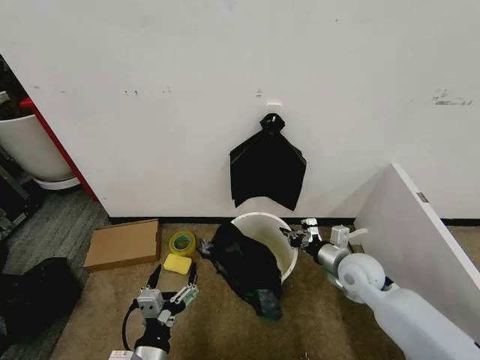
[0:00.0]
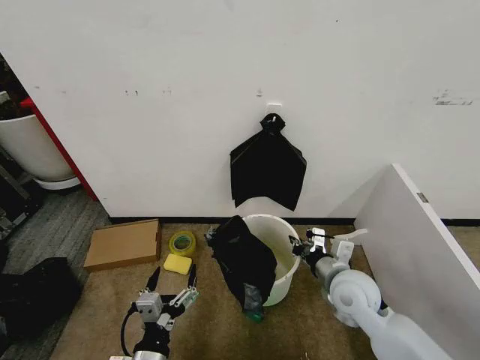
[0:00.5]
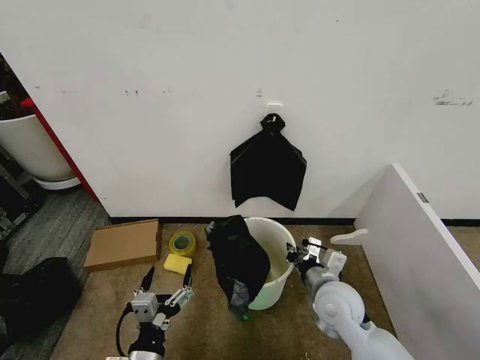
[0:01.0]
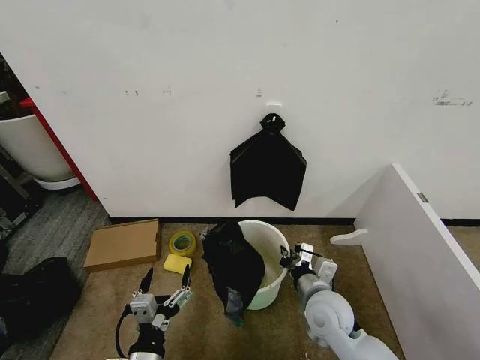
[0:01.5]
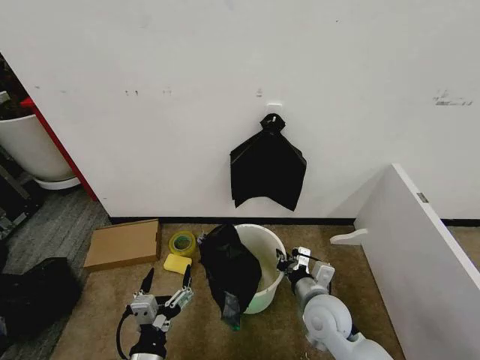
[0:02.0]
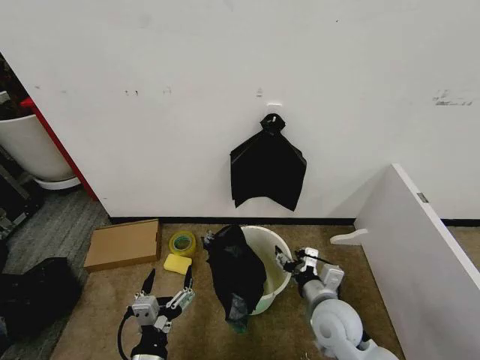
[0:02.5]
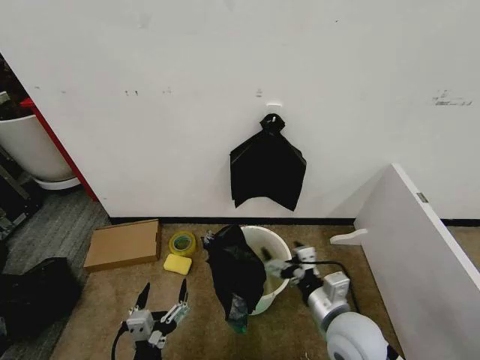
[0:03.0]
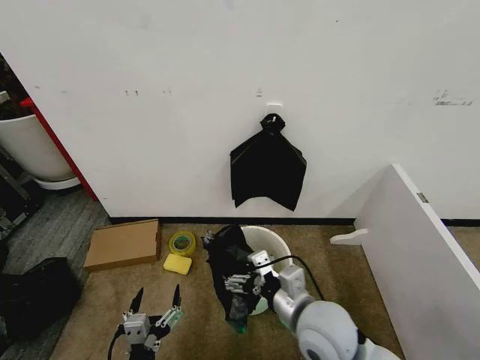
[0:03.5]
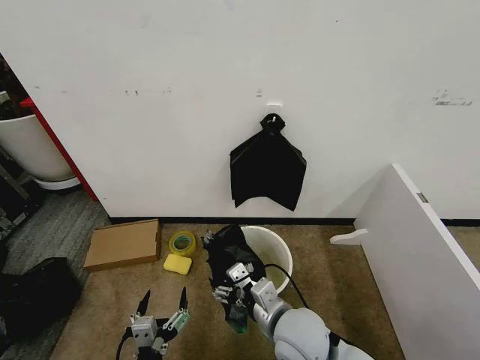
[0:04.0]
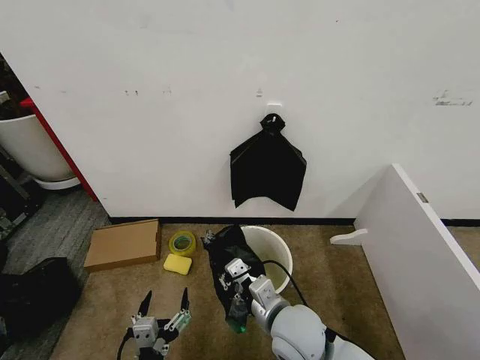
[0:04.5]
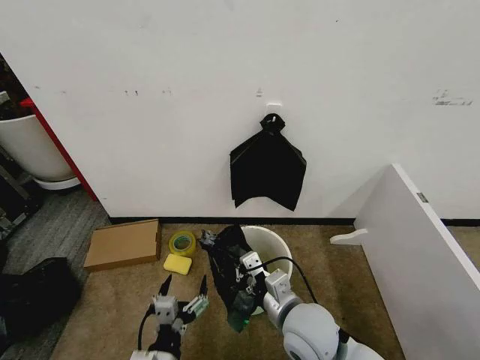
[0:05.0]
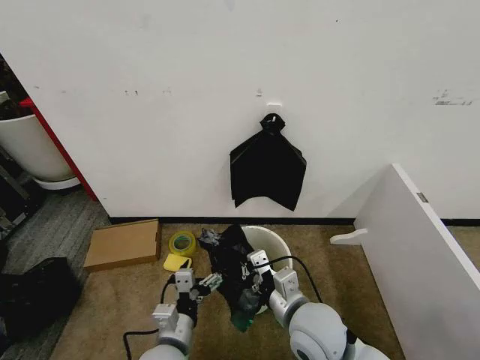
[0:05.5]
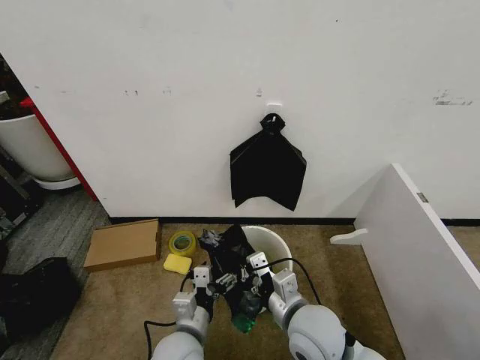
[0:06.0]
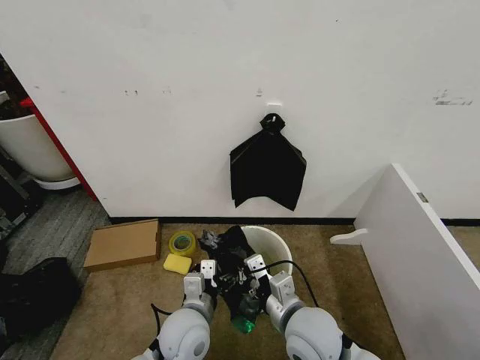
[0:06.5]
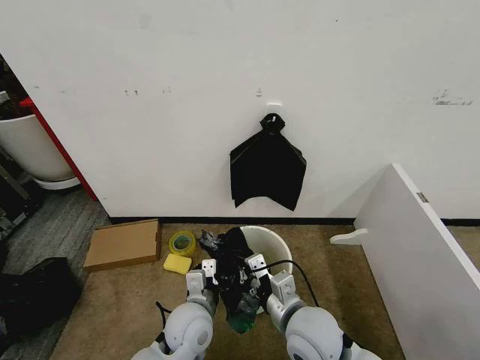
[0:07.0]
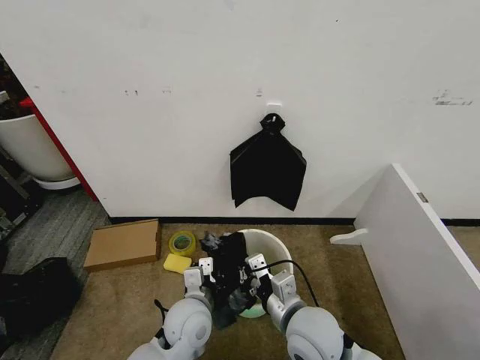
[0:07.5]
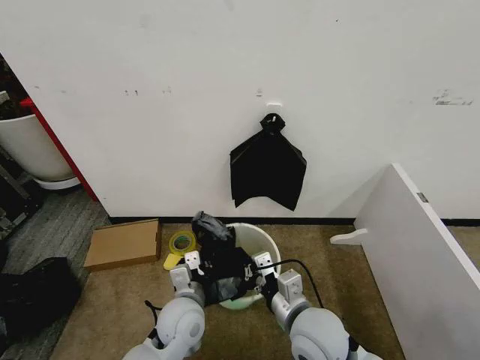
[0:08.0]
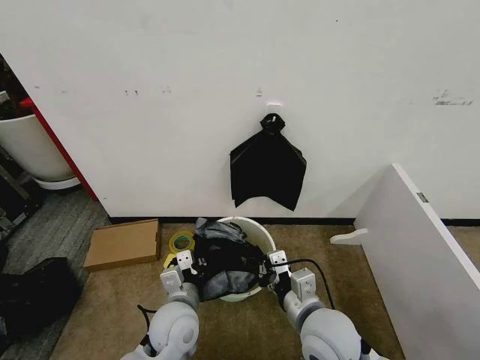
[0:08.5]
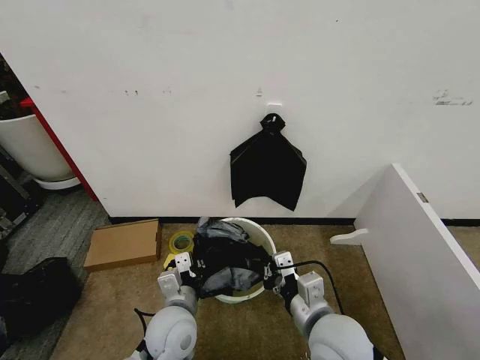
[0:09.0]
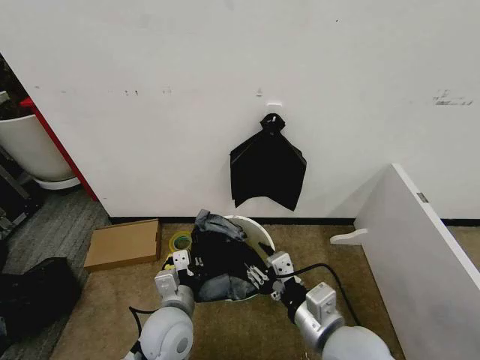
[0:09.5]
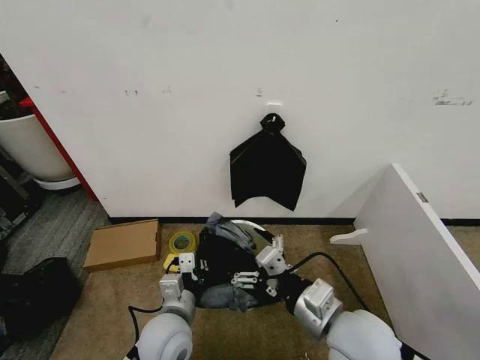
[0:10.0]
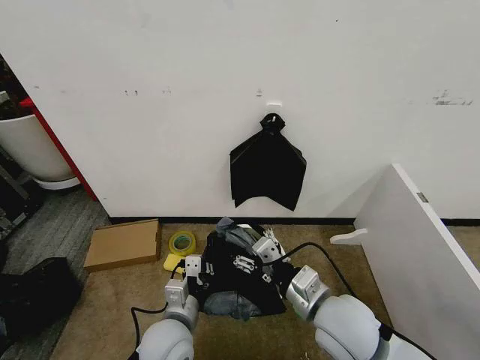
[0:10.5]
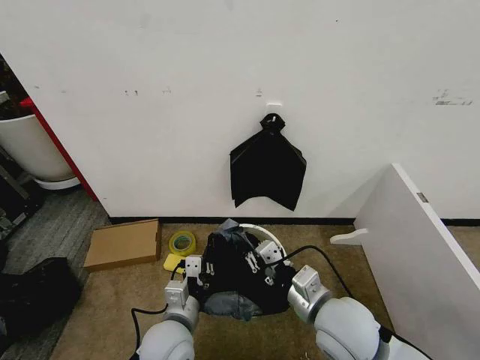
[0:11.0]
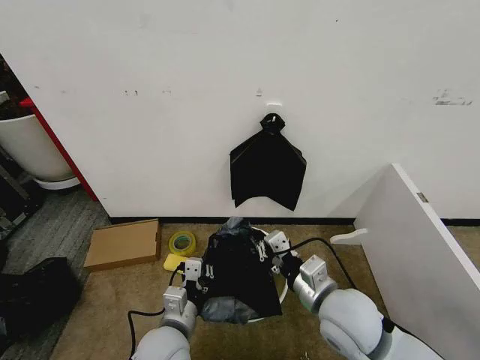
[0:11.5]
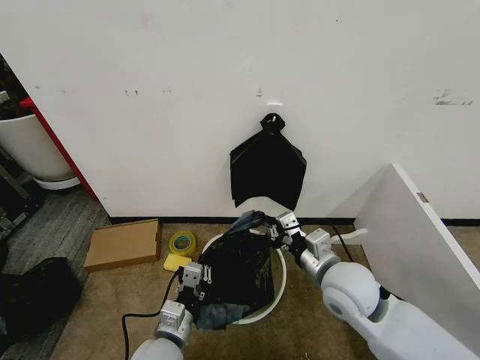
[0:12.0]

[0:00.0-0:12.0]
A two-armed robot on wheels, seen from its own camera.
Task of the whole recording: Place the garbage bag over the trash bin.
0:00.0 to 0:02.0: The right gripper shifts approximately 15 cm to the left and backward.
0:02.0 to 0:04.0: The right gripper shifts roughly 10 cm to the left, upward and backward, and opens up.
0:04.0 to 0:06.0: The right gripper closes. The left gripper goes some 15 cm forward and to the right.
0:06.0 to 0:08.0: The left gripper is displaced forward by roughly 5 cm, and closes its fingers.
0:08.0 to 0:10.0: The right gripper heads upward, covering roughly 5 cm, and opens up.
0:10.0 to 0:12.0: The left gripper changes place by some 5 cm. Meanwhile the right gripper goes roughly 10 cm forward, and closes up.

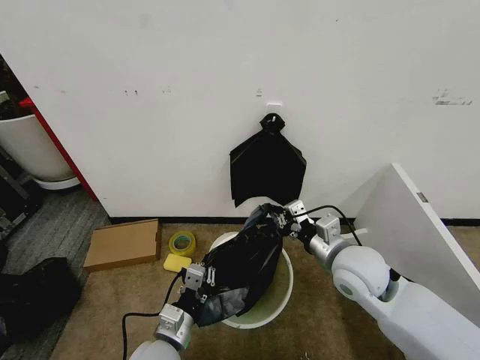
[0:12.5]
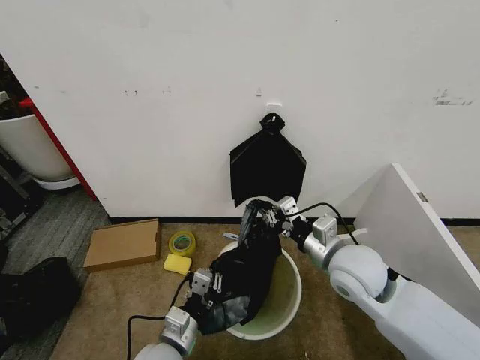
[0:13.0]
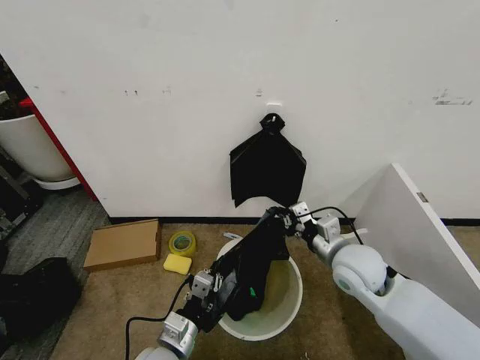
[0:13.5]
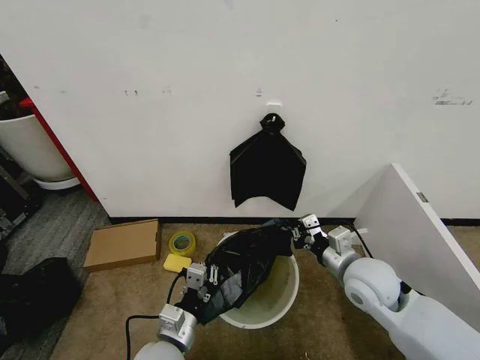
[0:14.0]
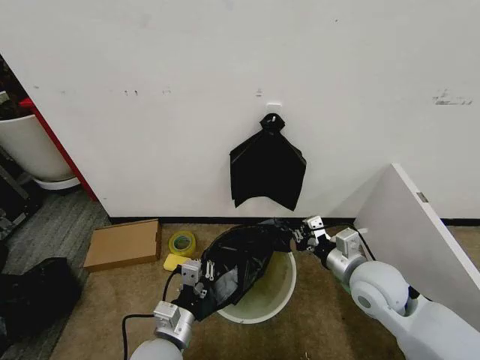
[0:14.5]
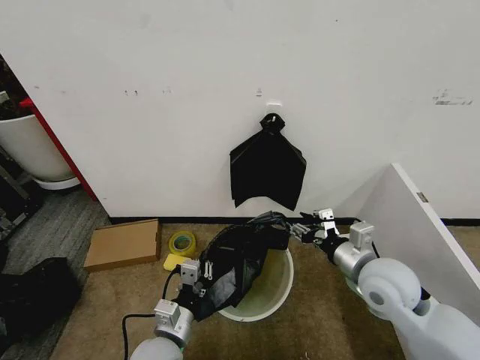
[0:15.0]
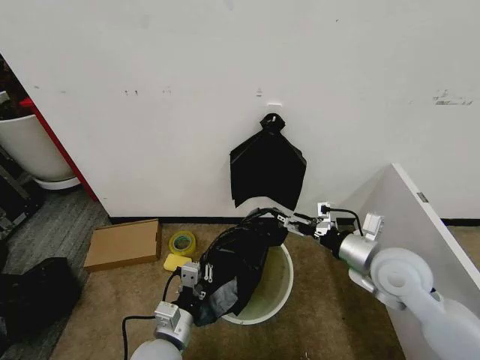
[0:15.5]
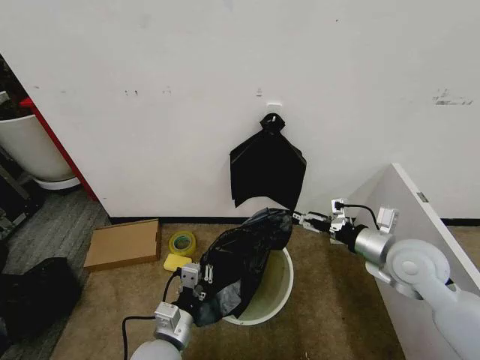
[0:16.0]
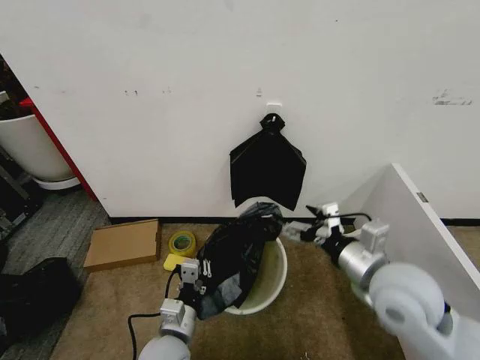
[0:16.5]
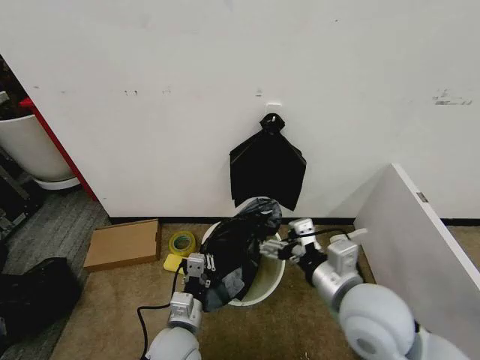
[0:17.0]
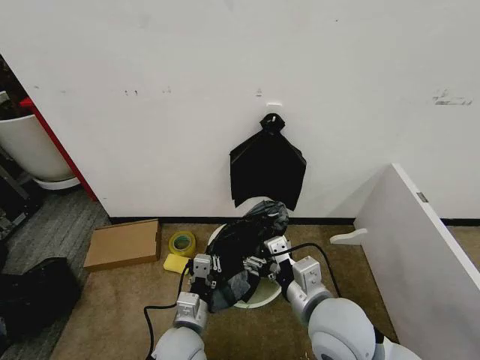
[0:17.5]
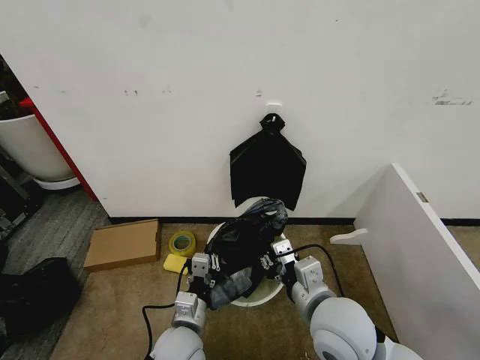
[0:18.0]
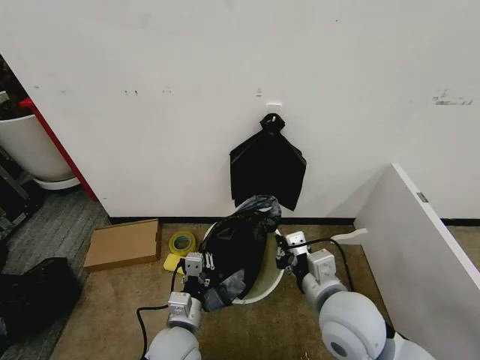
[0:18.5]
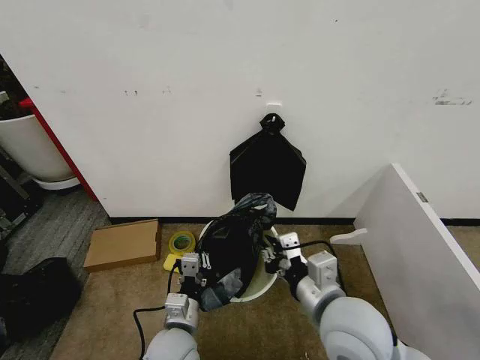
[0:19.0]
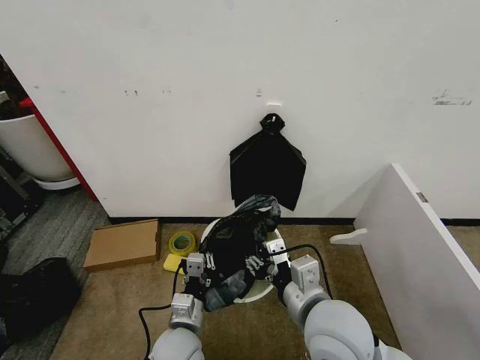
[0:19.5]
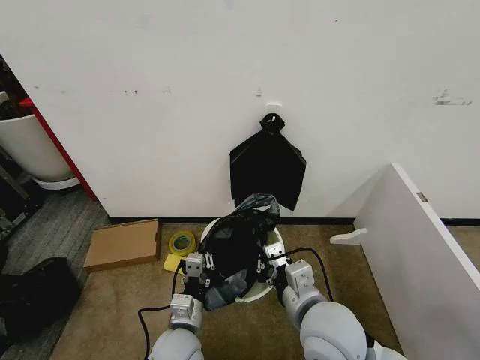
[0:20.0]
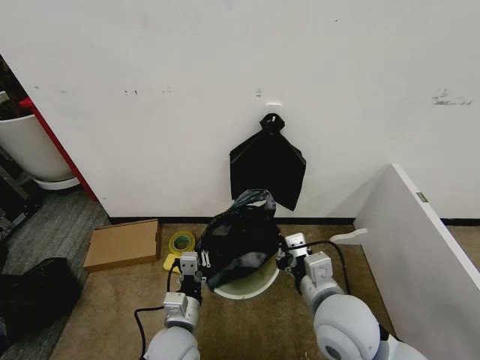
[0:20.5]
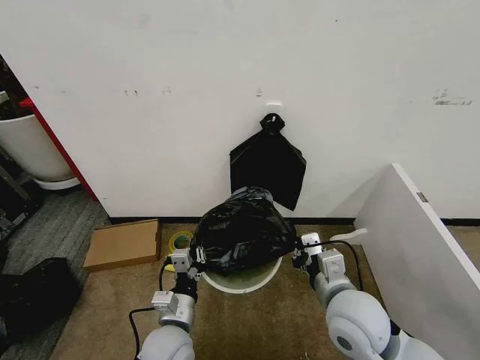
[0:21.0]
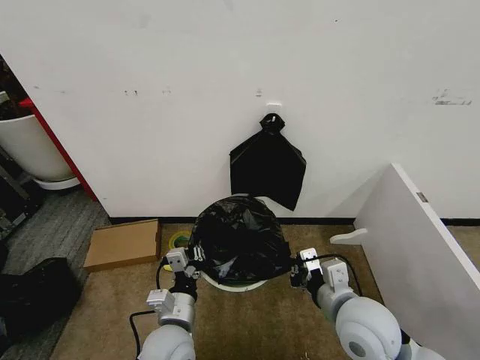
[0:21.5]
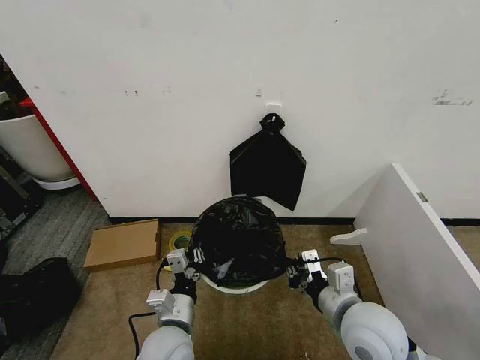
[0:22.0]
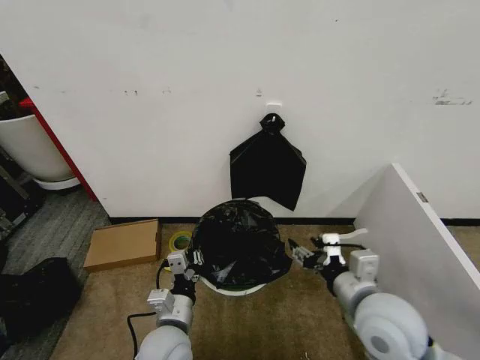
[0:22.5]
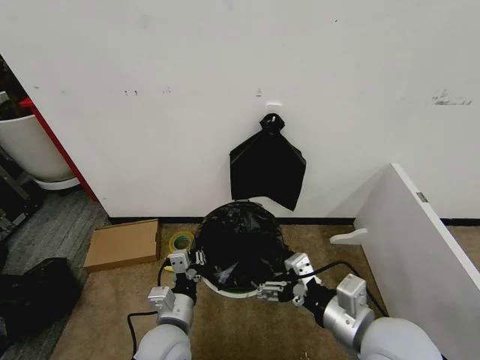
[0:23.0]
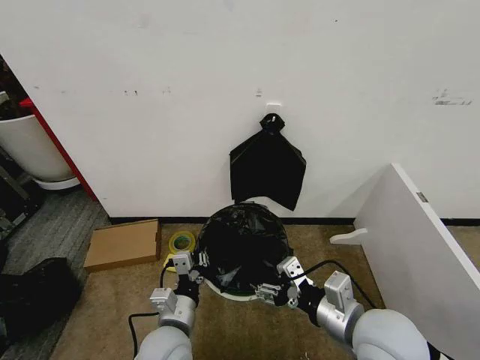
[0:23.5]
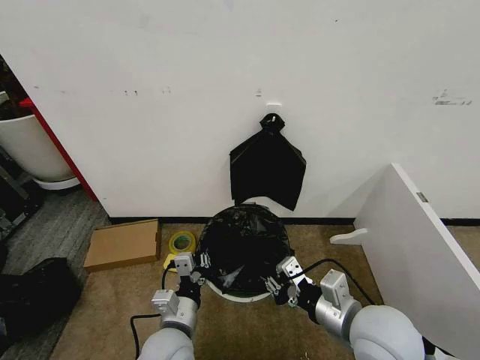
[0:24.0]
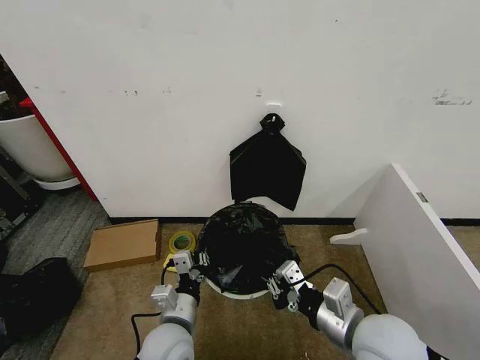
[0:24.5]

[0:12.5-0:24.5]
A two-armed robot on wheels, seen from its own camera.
Task of the whole recording: Place the garbage bag over the trash bin.
0:12.5 to 0:14.5: The grippers stay close to where they were, moving slightly.
0:14.5 to 0:16.5: The right gripper is displaced upward by approximately 5 cm, and opens its fingers.
0:16.5 to 0:18.5: The right gripper shifts approximately 10 cm to the left, and closes up.
0:18.5 to 0:20.5: The right gripper opens, then closes again.
0:20.5 to 0:22.5: The right gripper goes approximately 5 cm to the right, and opens its fingers.
0:22.5 to 0:24.5: The right gripper closes its fingers.

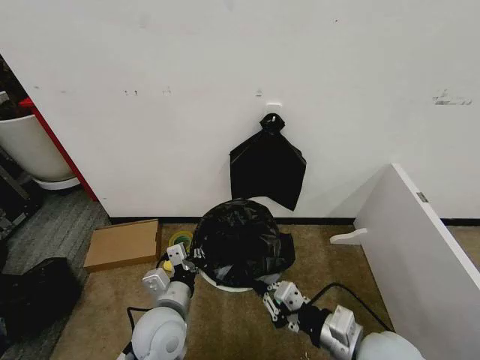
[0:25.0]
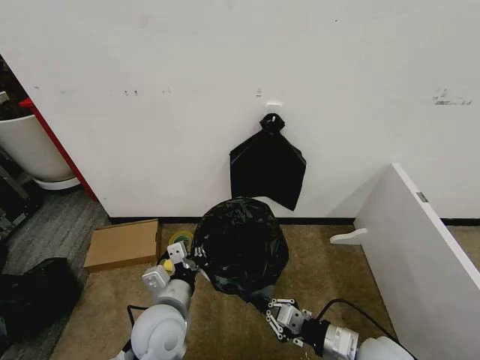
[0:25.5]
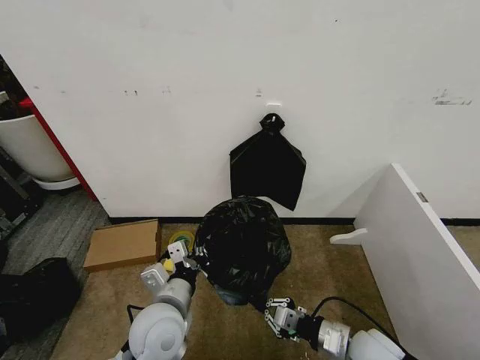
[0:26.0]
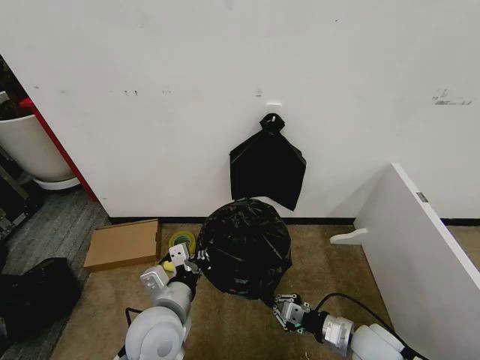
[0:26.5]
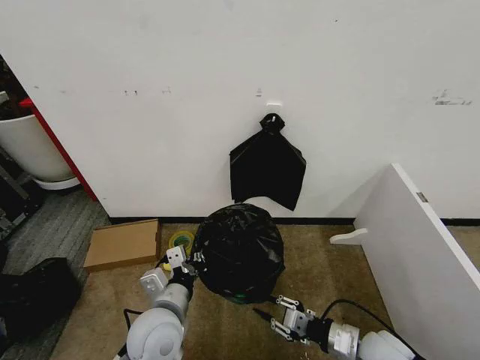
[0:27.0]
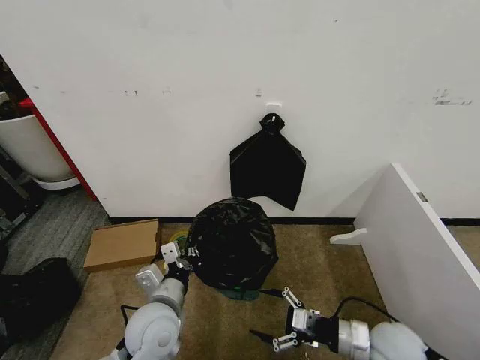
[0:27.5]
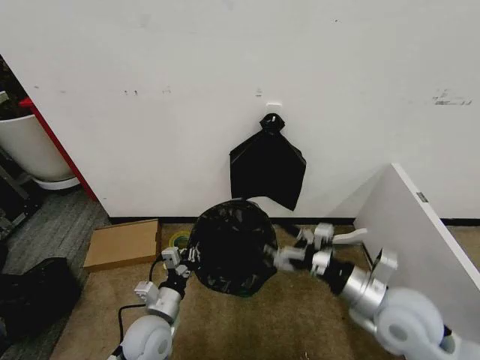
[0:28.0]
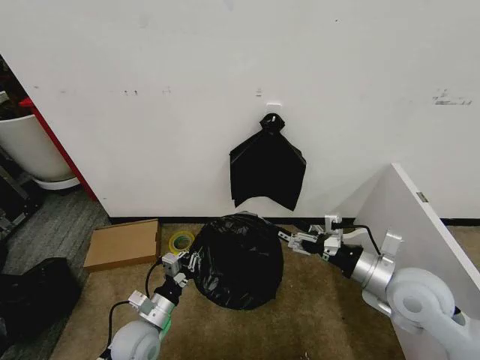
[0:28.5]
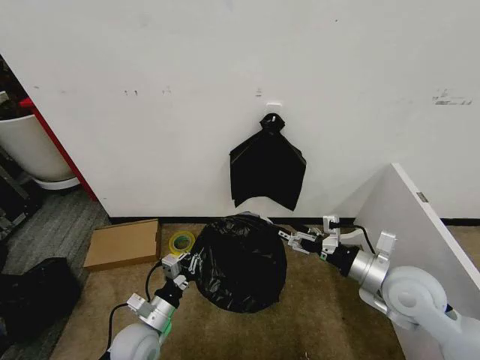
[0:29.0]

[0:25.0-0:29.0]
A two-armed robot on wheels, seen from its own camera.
Task of the whole recording: Place the garbage bag over the trash bin.
0:25.0 to 0:27.0: The right gripper goes some 10 cm downward and to the right.
0:27.0 to 0:29.0: The left gripper shifts some 15 cm downward and to the left; the right gripper moves upward and forward, roughly 15 cm, and opens its fingers.
